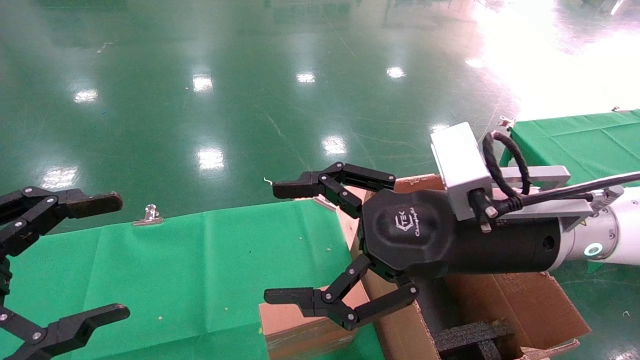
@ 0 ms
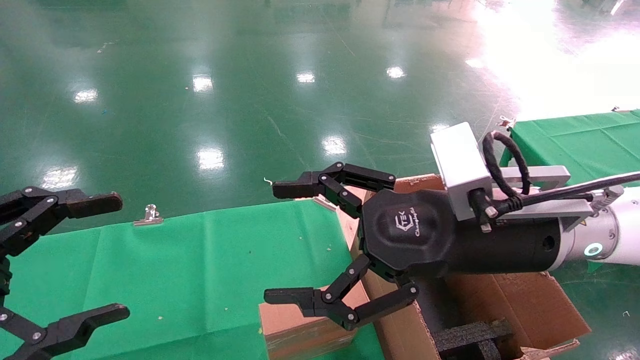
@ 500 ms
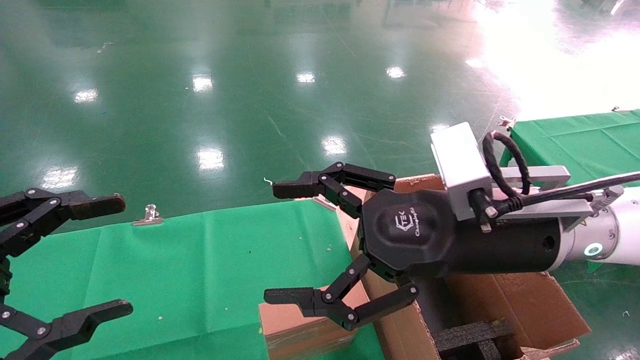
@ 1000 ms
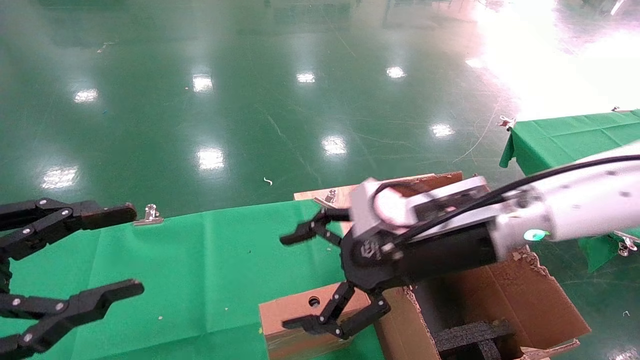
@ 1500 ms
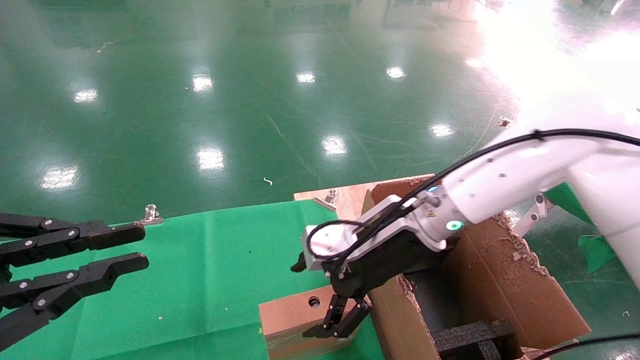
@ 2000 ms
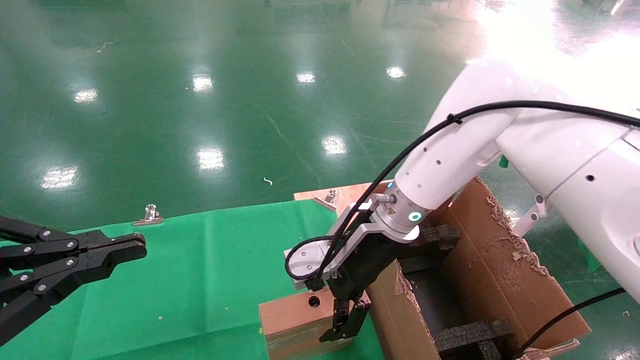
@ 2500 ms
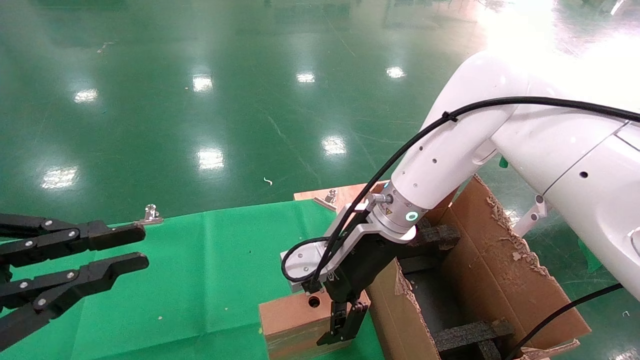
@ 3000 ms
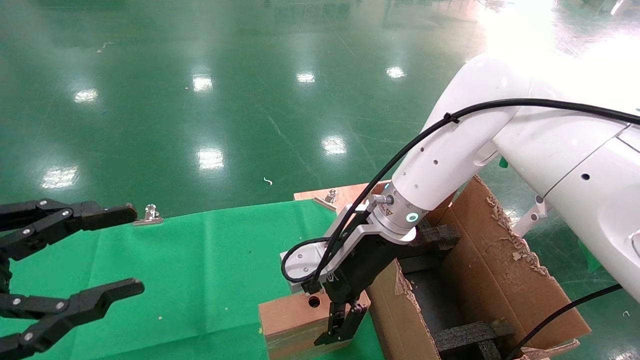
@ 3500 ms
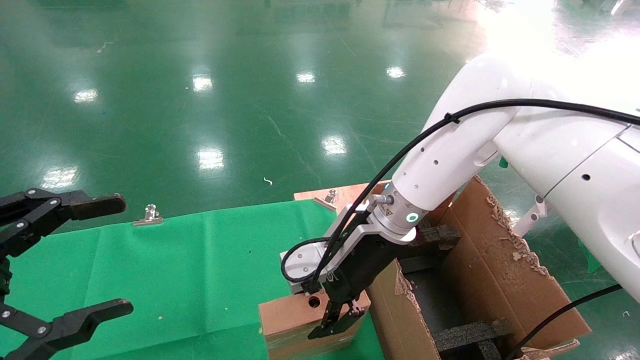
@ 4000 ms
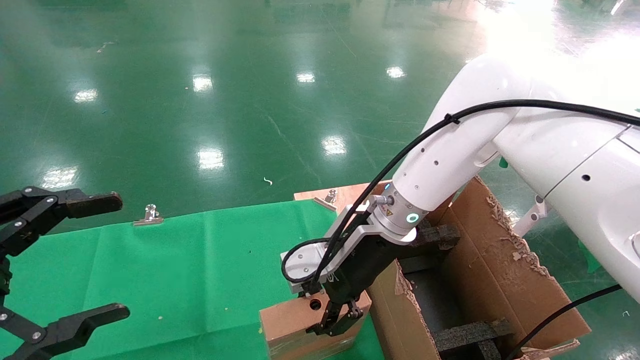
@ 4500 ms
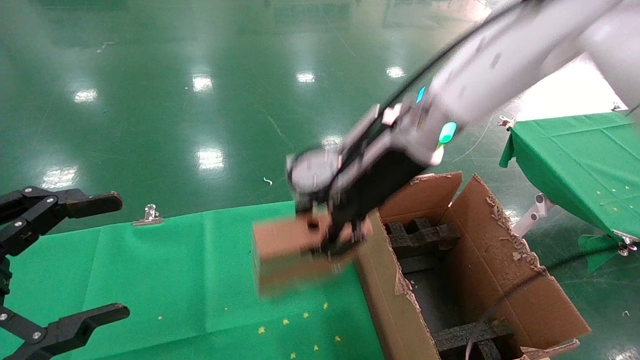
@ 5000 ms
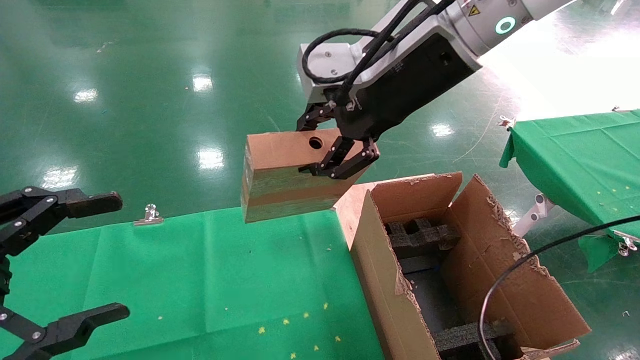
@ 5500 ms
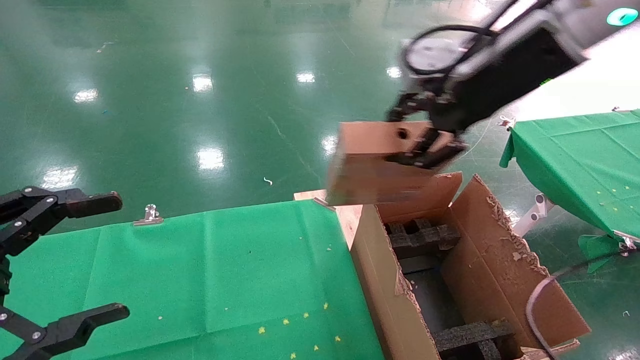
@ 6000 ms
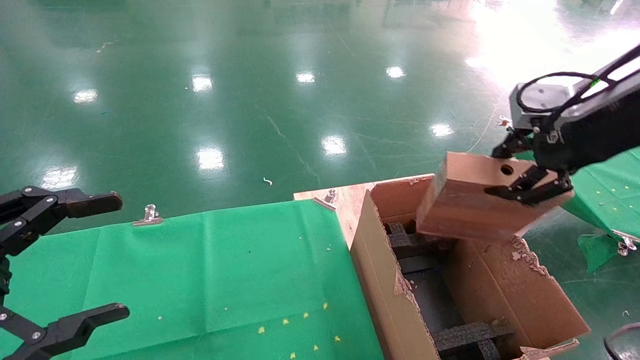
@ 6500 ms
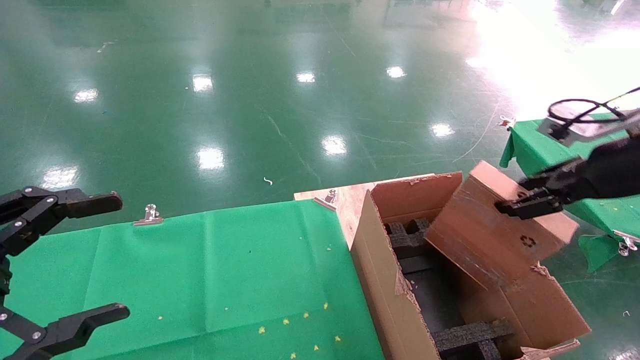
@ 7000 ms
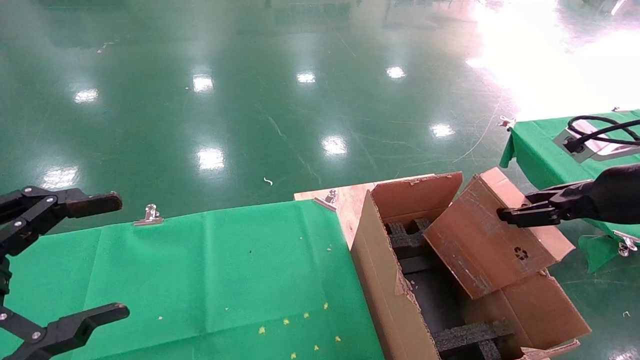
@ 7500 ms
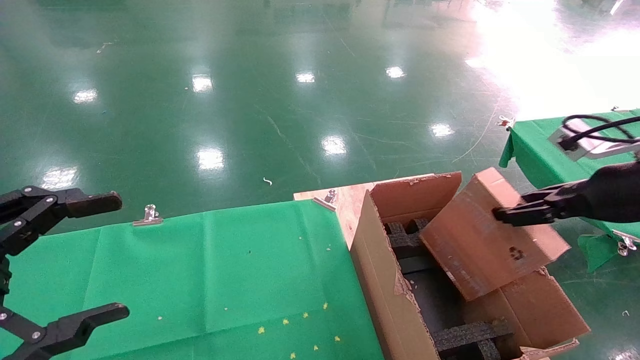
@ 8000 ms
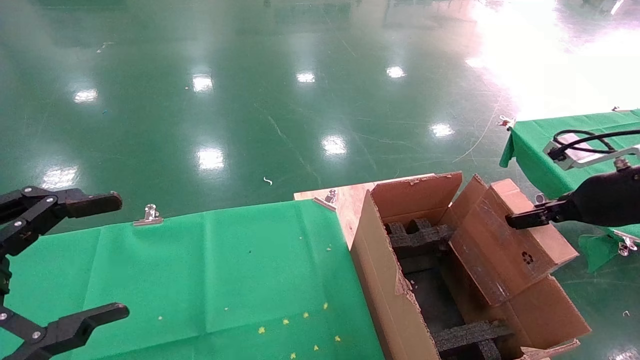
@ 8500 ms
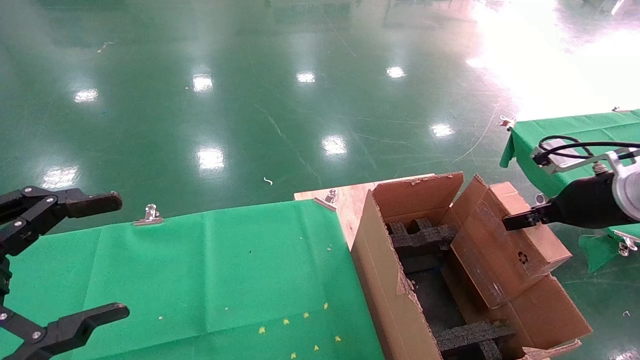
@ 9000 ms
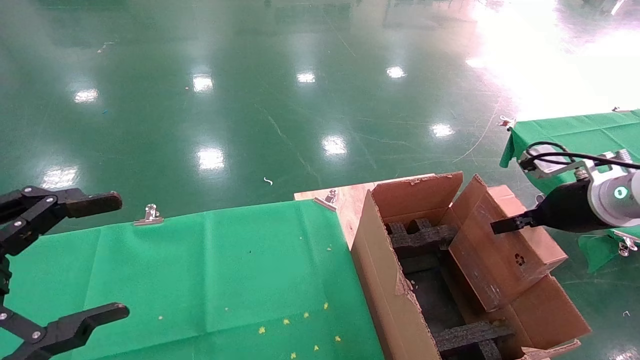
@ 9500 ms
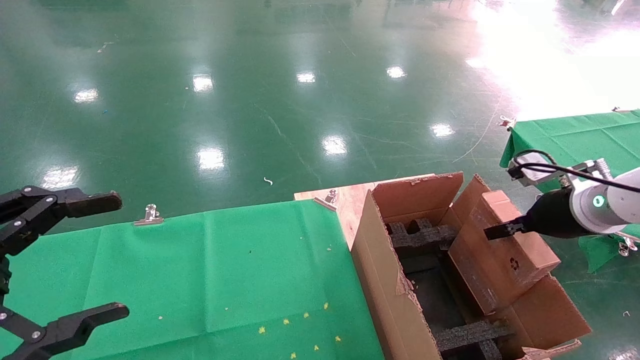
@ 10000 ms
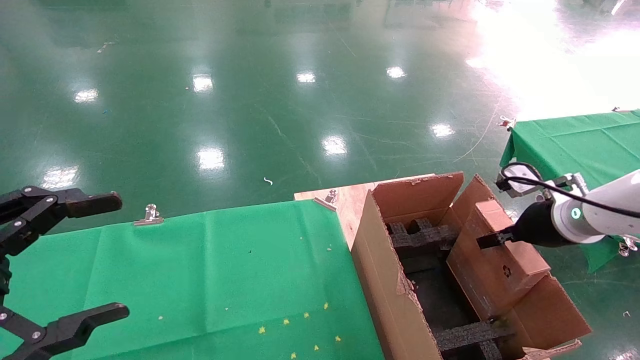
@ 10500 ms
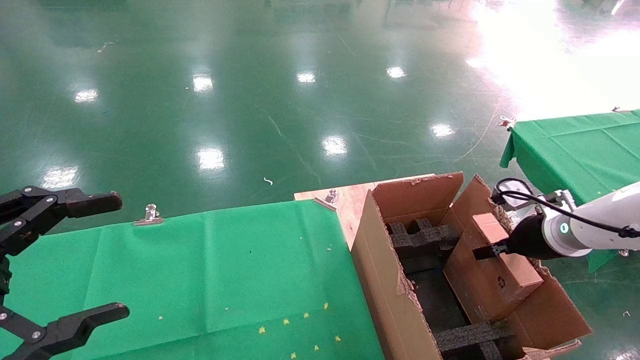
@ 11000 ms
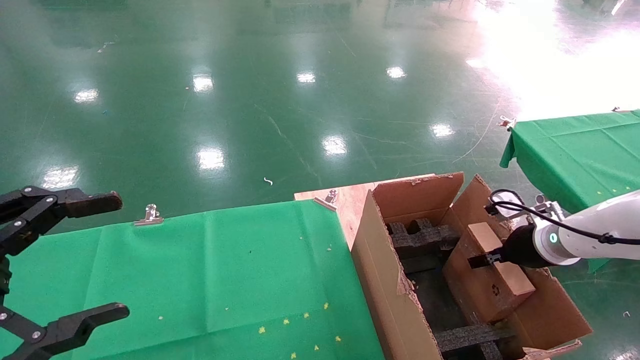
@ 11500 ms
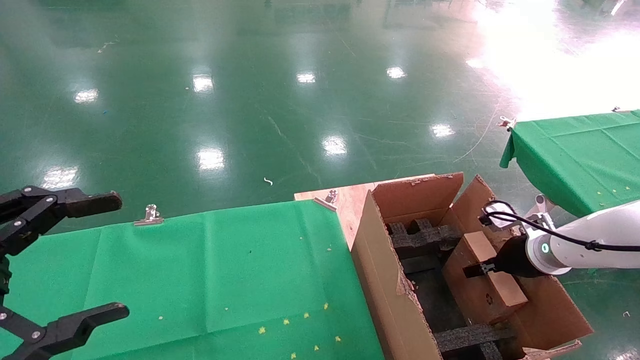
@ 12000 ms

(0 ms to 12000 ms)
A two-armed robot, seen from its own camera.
Task of the whole recording: using a robotic arm to pick up a cardboard box and palace it the carton.
Step, 2000 ms - 4500 ms: Pick up the mouse and the power cord paper box.
0 ms - 2000 ms: The left gripper closes its fingers. The right gripper heads forward and to the left, covering approximately 10 cm.
2000 ms - 4000 ms: The right gripper closes up. The left gripper opens.
4000 ms - 6000 ms: The right gripper shifts about 25 cm upward and to the right, and closes up.
6000 ms - 8000 ms: The right gripper moves to the right and downward, some 25 cm.
8000 ms - 10000 ms: The right gripper shifts some 10 cm forward and downward.
10000 ms - 12000 ms: The right gripper moves downward, roughly 10 cm.

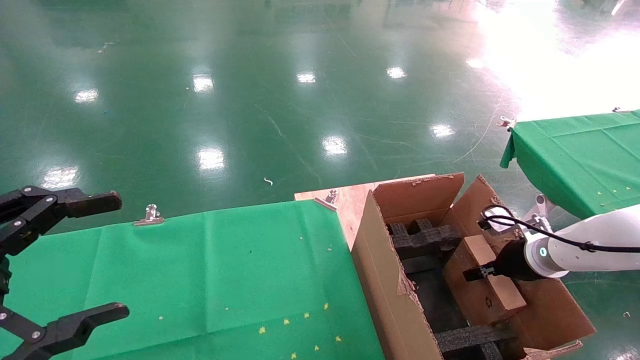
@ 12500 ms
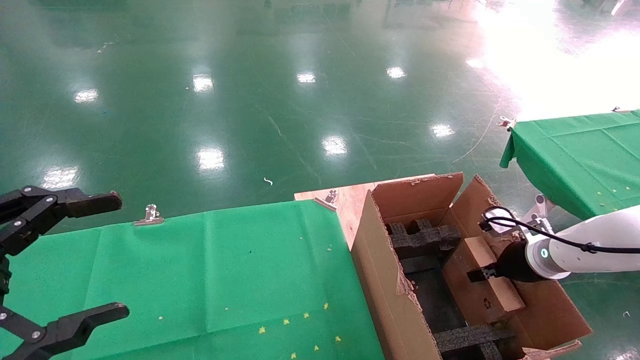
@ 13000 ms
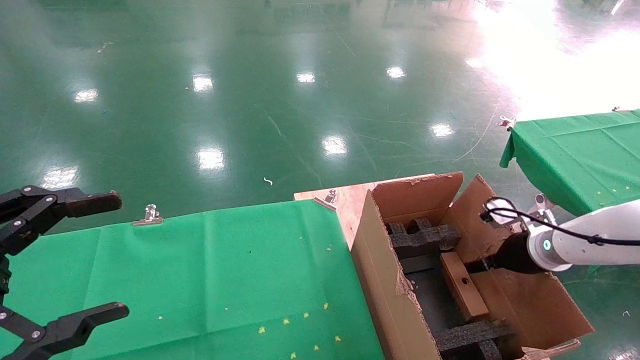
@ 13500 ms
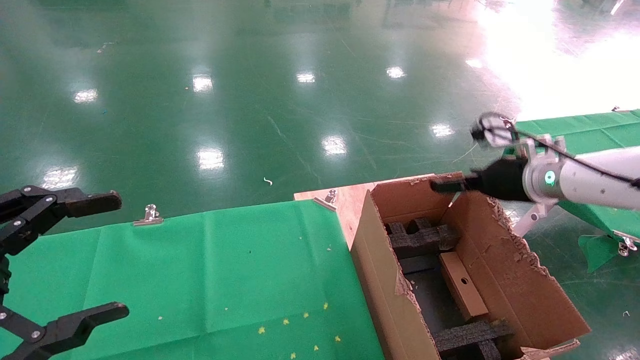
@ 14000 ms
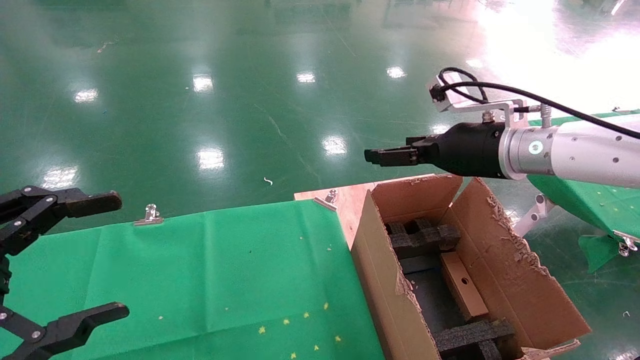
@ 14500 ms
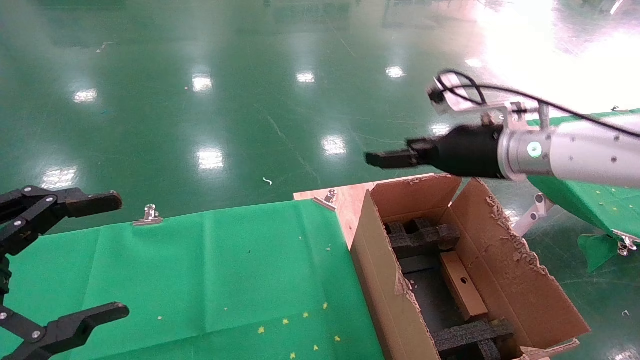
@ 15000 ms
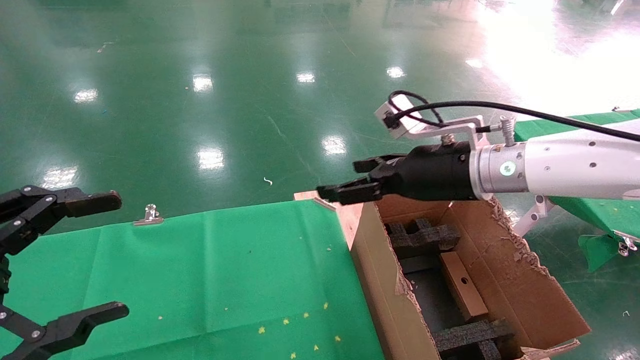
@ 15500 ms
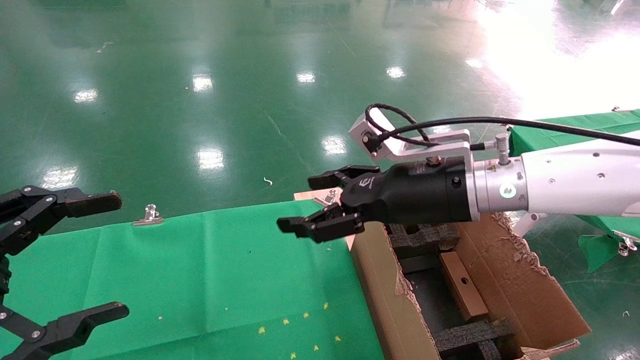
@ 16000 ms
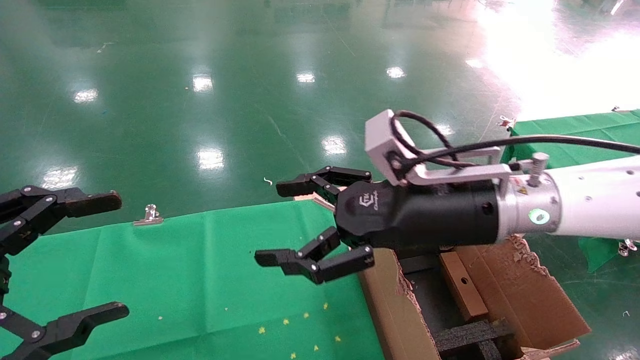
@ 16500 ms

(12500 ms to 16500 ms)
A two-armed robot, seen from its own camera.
Task of the whole recording: using a robotic arm to pick up a cardboard box and palace it the carton.
12500 ms - 14500 ms: The right gripper shifts about 25 cm upward and to the left, and opens.
14500 ms - 16500 ms: The right gripper is displaced to the left and backward by about 15 cm.

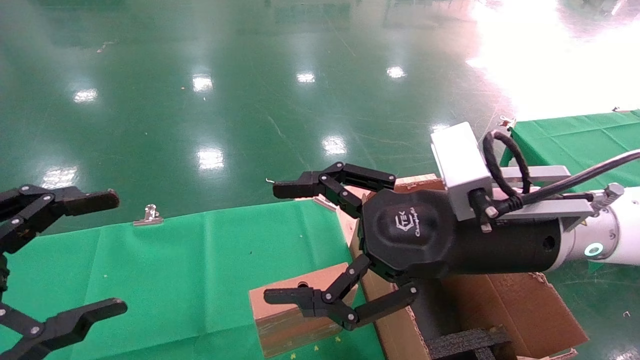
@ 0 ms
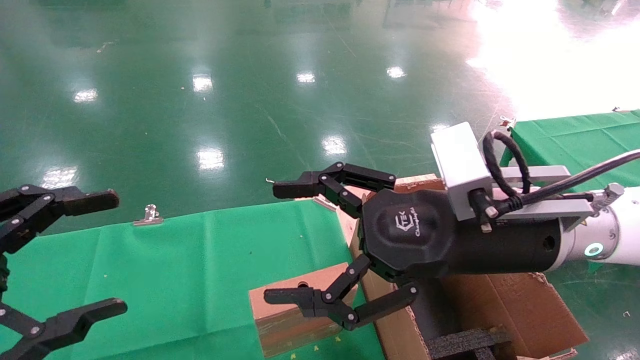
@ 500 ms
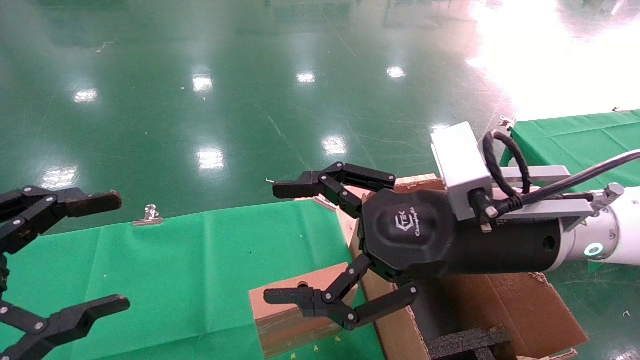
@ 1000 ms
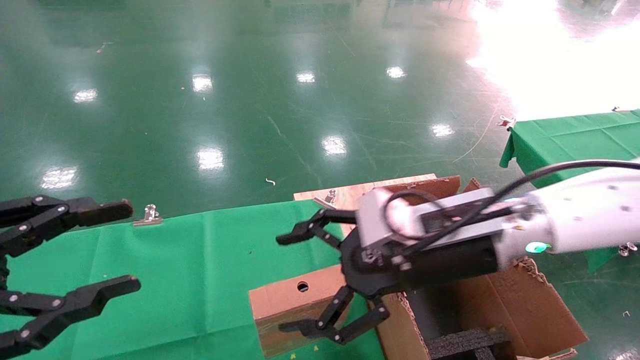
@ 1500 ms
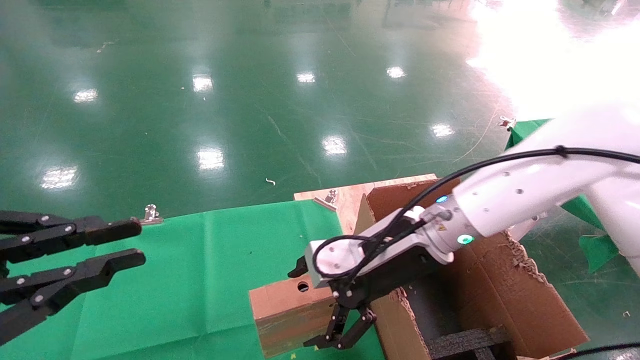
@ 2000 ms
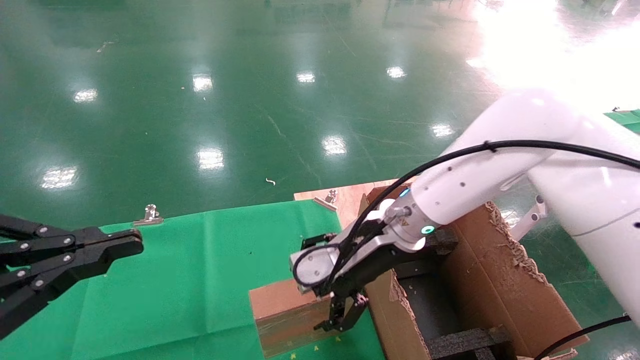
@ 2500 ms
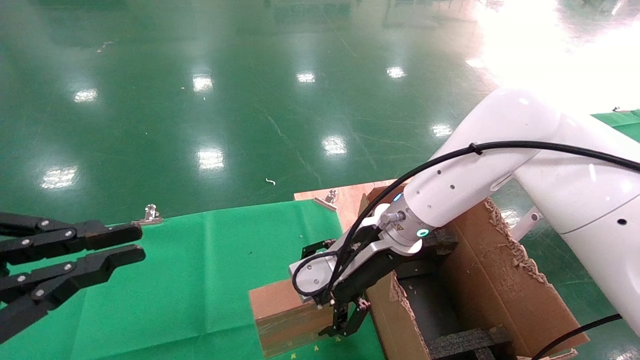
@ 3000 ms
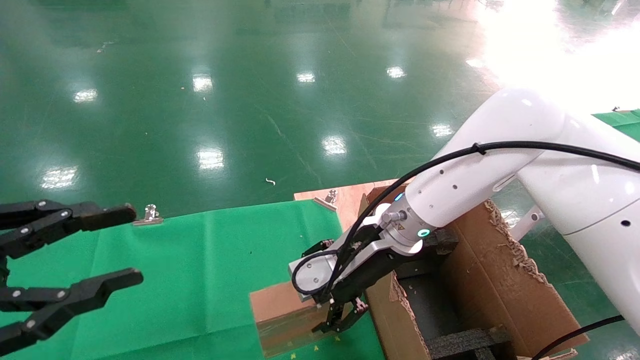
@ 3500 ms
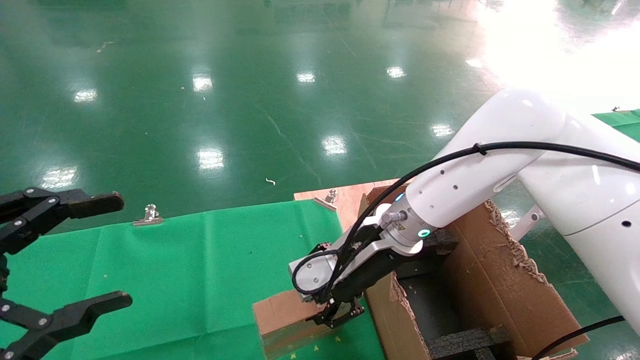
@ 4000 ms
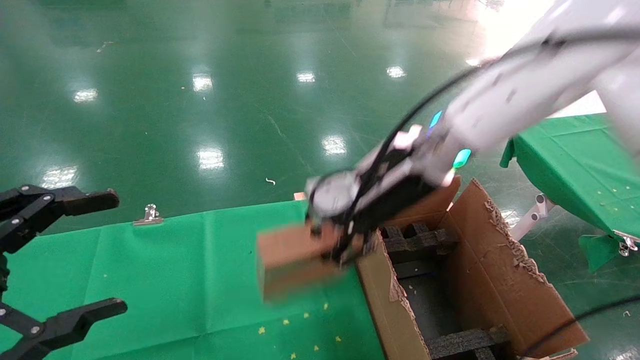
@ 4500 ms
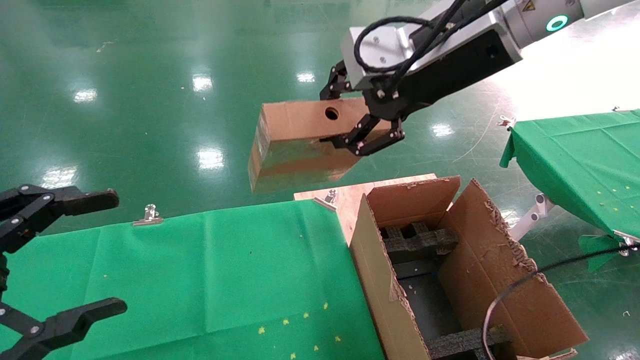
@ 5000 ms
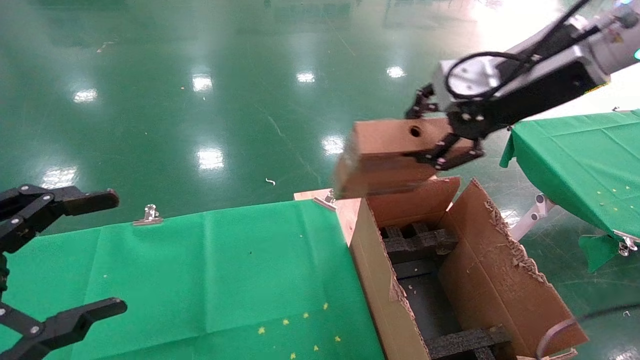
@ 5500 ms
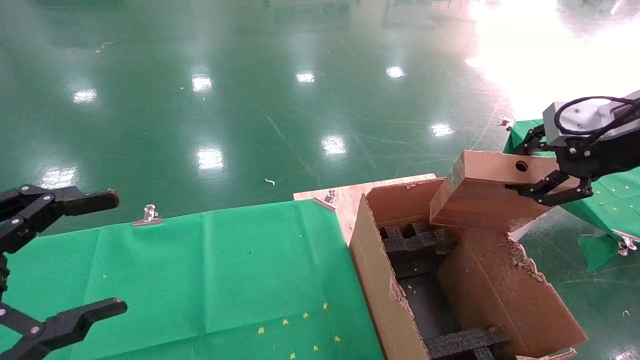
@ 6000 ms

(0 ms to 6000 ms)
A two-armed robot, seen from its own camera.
Task of the whole recording: using a robotic arm to pick up a cardboard box and palace it the carton.
Step, 1500 ms - 3500 ms: Pick up the mouse and the power cord paper box.
0 ms - 2000 ms: The right gripper shifts roughly 10 cm forward and downward; the left gripper closes up.
2000 ms - 4000 ms: The left gripper opens, while the right gripper closes its fingers.
4000 ms - 6000 ms: The right gripper heads to the right and upward, covering approximately 30 cm.
